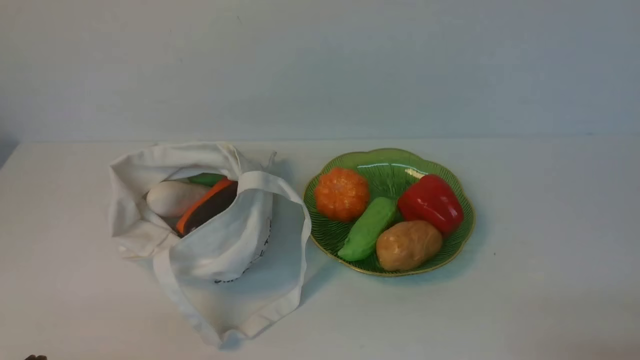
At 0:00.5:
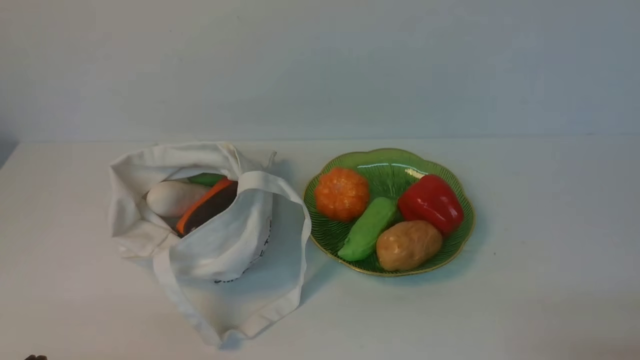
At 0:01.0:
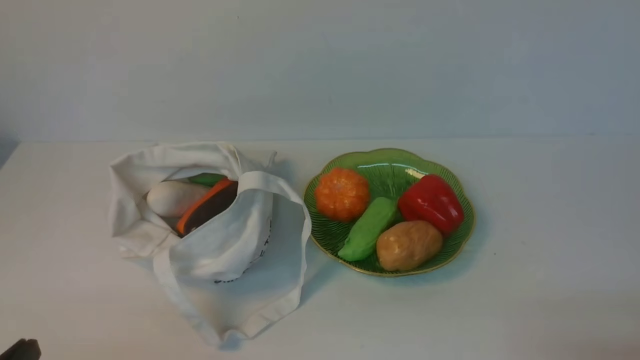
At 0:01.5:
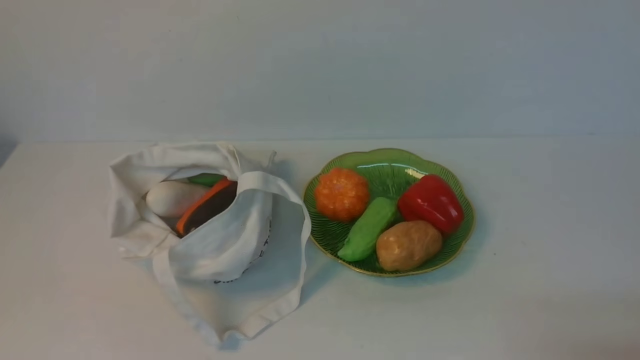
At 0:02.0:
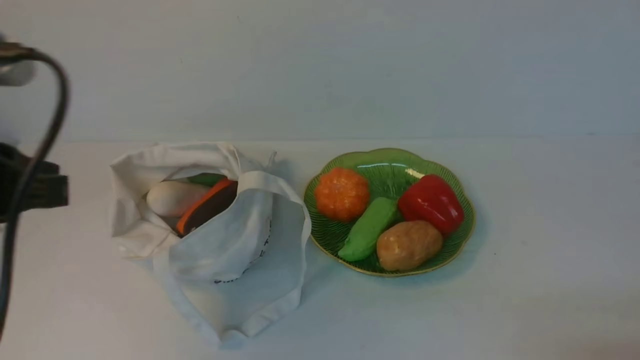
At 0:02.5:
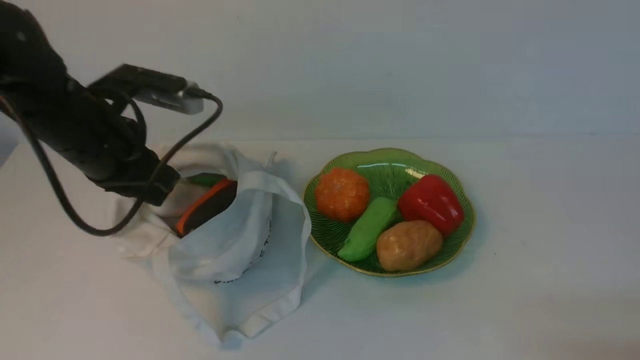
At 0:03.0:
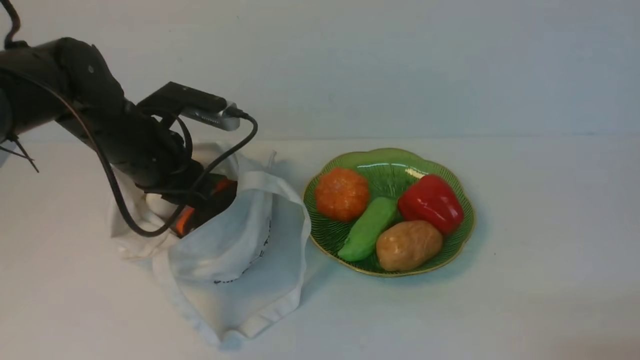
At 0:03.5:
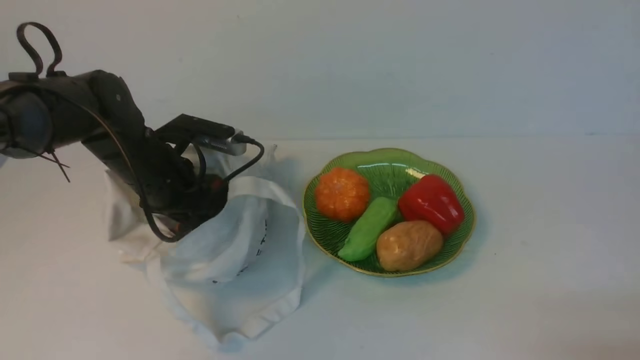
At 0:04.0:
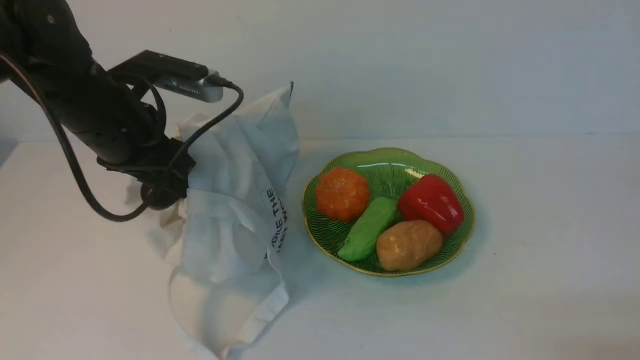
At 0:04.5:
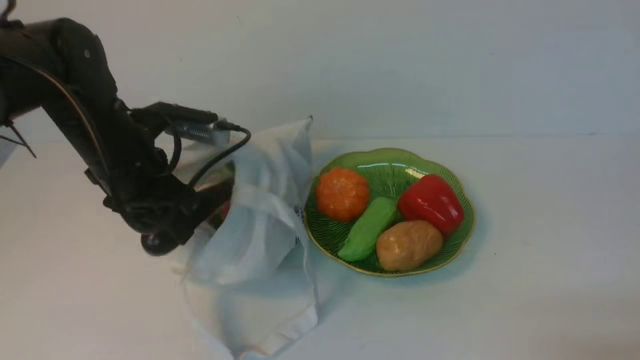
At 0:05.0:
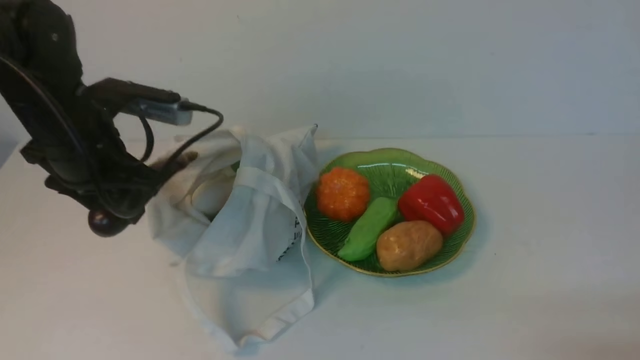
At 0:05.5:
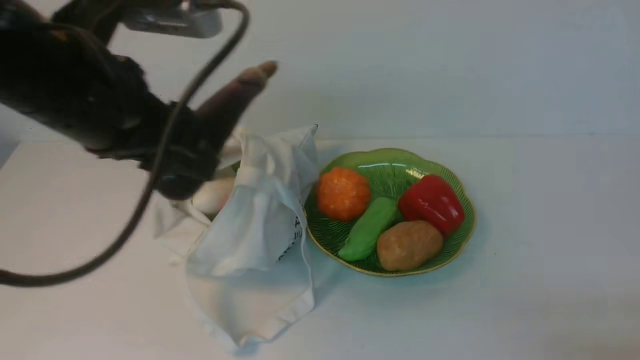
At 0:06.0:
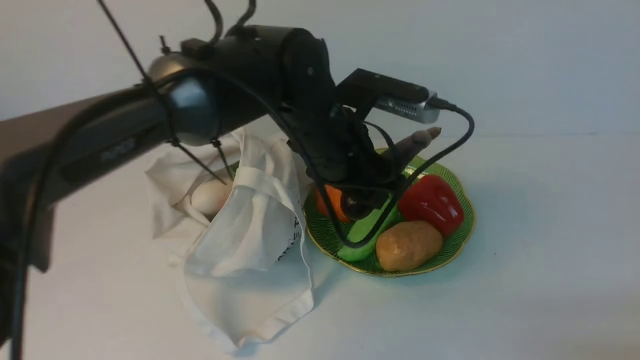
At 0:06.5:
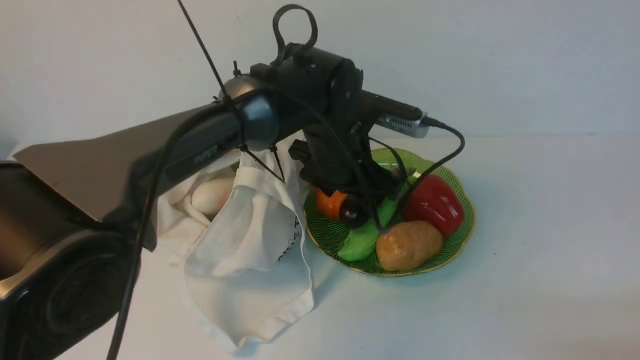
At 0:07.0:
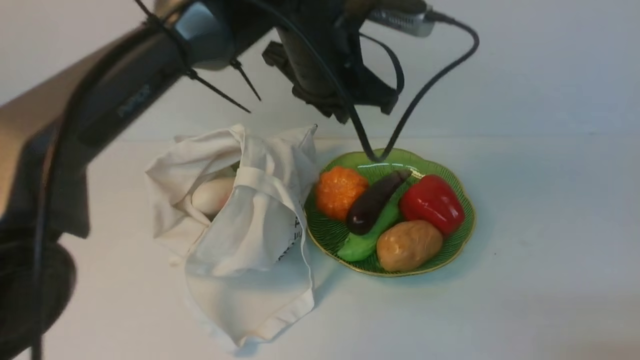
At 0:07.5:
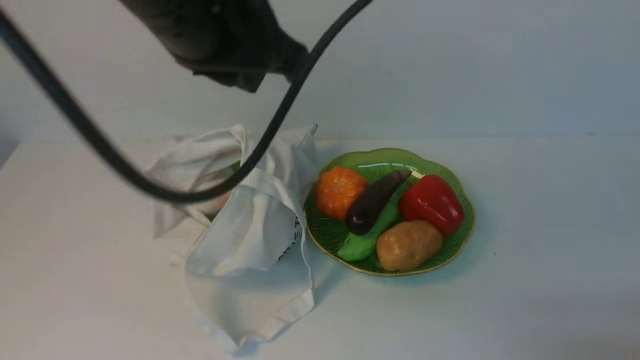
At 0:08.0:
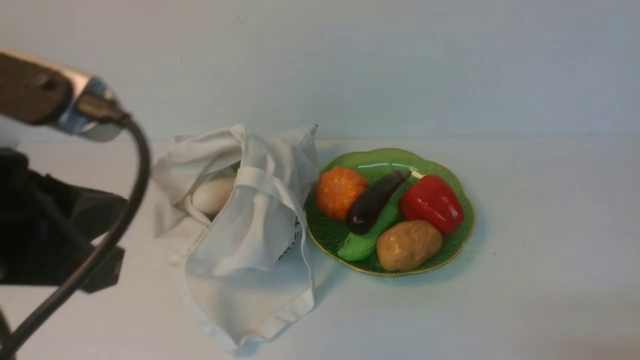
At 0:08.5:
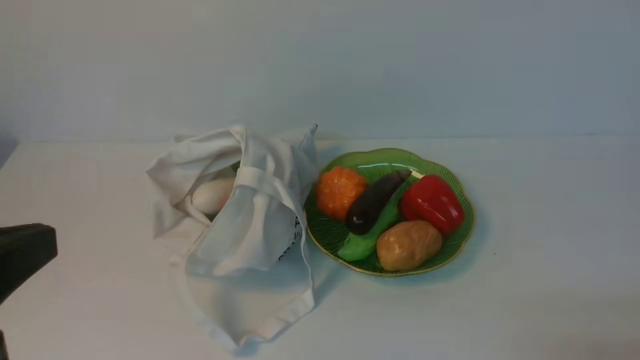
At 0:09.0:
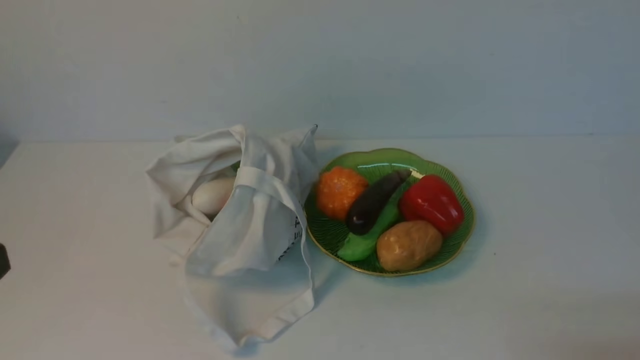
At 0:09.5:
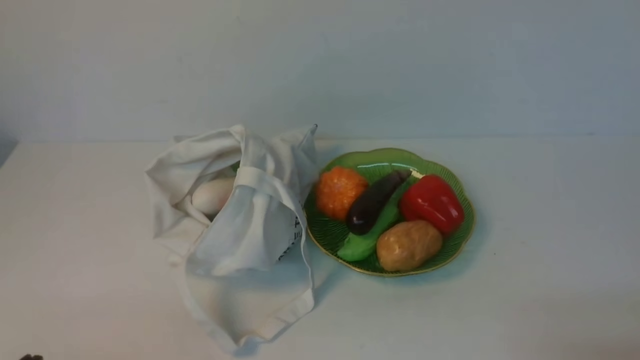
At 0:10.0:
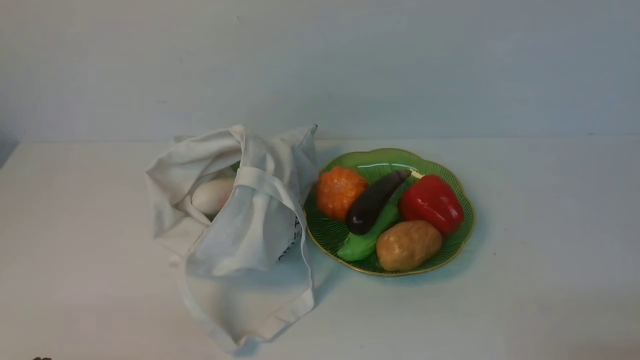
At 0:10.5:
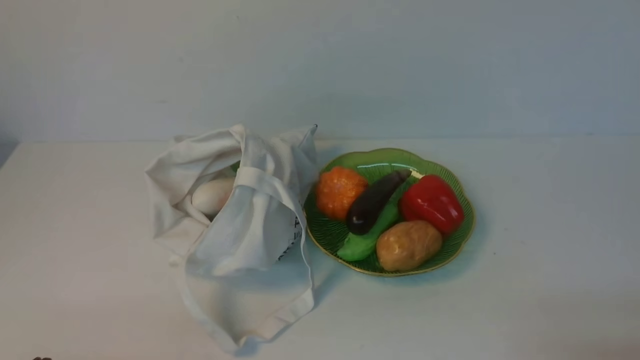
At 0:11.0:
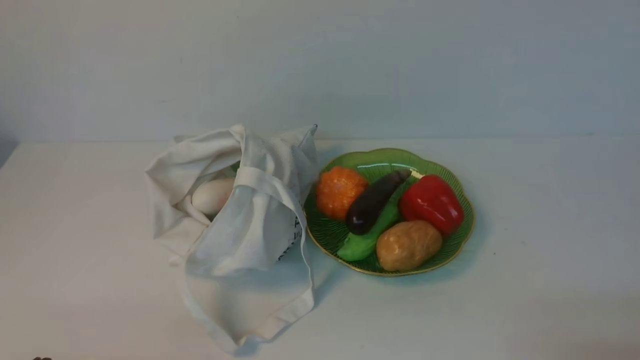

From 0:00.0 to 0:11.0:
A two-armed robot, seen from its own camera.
Task of the whole recording: take vegetables from cloth bag on white table place on plate.
Step, from 0:00.0 to 0:03.5: Grasp the eggplant with left gripper.
Step, from 0:04.0 to 0:06.5: Place the eggplant on the plate with left gripper.
From 0:00.0 to 0:02.0: The left gripper is displaced upward and forward by approximately 25 cm.
From 0:02.0 to 0:03.5: The left gripper travels forward and downward by roughly 25 cm, and opens.
From 0:03.5 to 0:05.5: The left gripper moves upward and backward, approximately 20 cm.
From 0:05.5 to 0:07.5: The left gripper travels downward and back again, approximately 15 cm each way, and closes.
From 0:07.5 to 0:09.0: The left gripper goes about 30 cm backward, to the left and downward.
